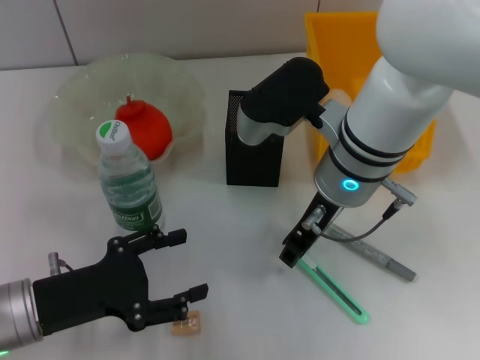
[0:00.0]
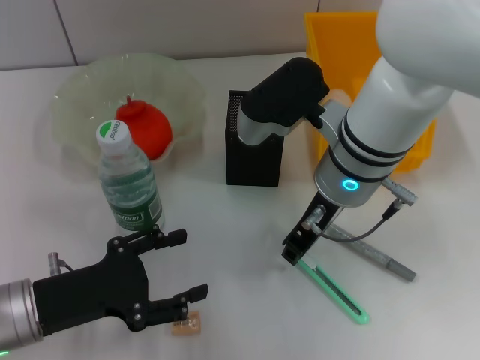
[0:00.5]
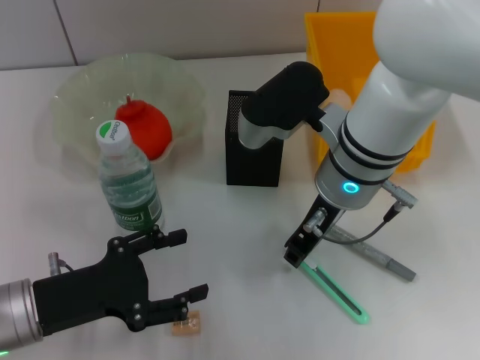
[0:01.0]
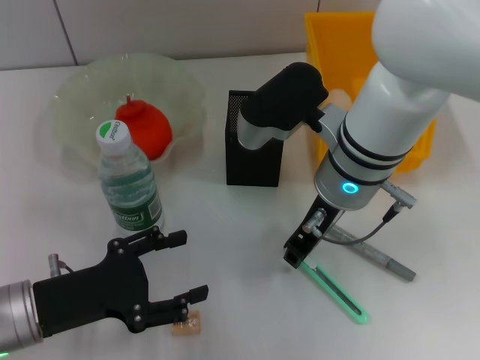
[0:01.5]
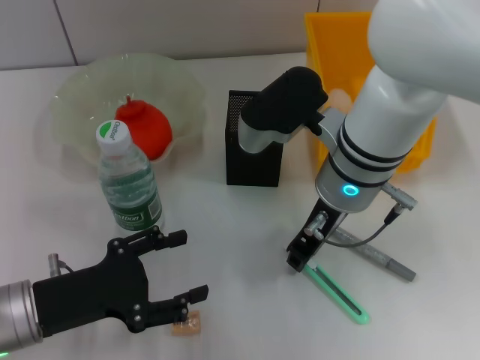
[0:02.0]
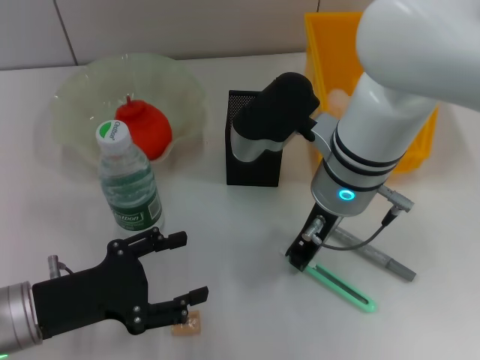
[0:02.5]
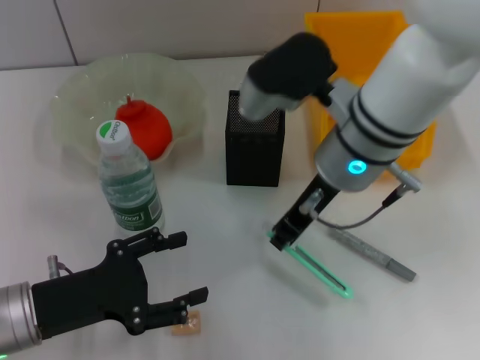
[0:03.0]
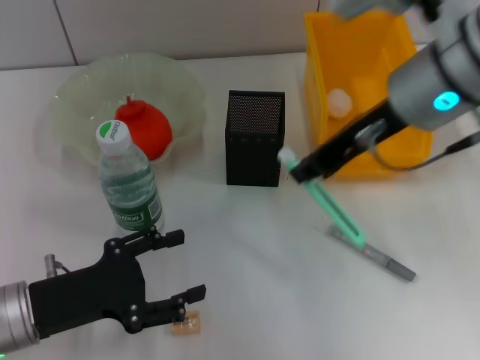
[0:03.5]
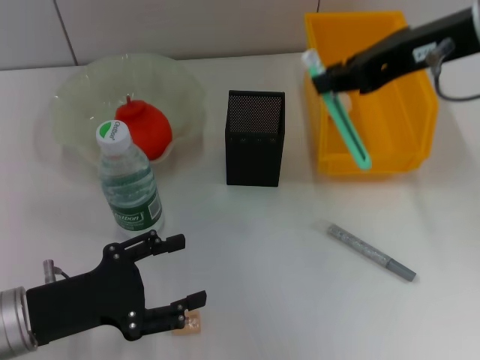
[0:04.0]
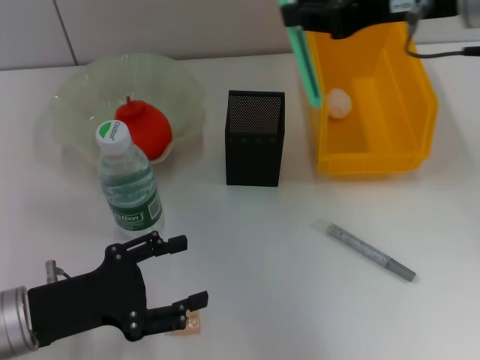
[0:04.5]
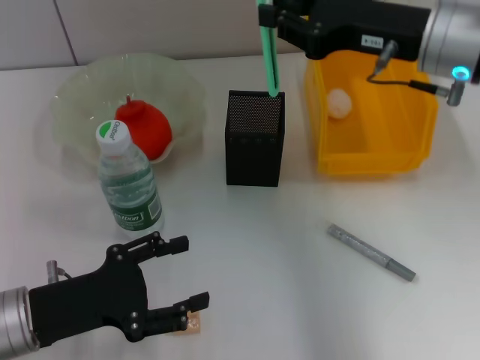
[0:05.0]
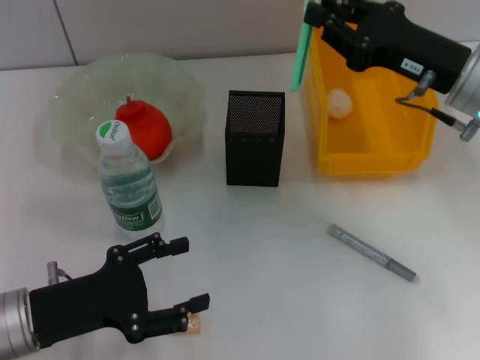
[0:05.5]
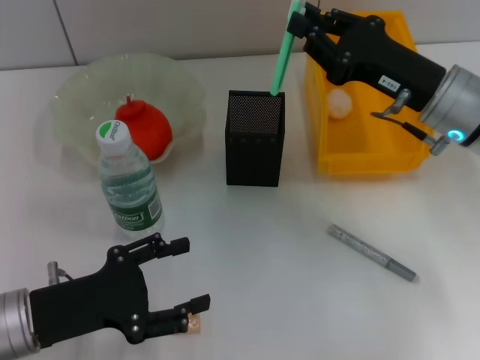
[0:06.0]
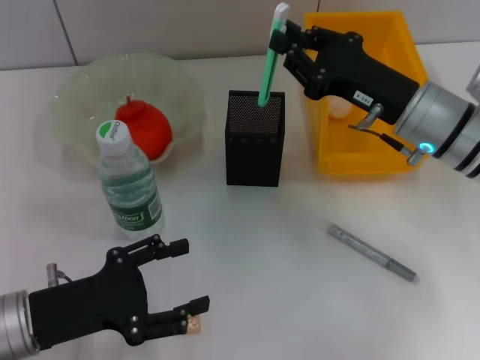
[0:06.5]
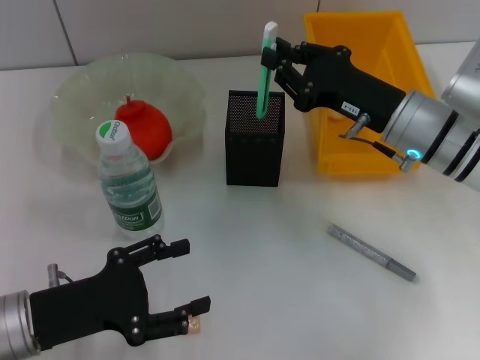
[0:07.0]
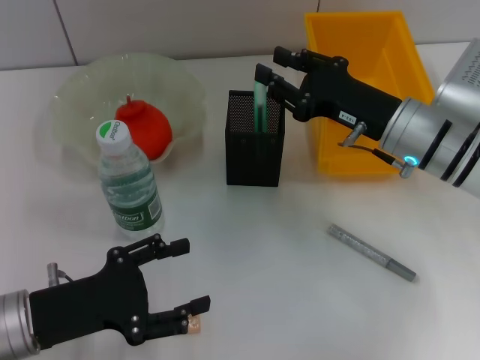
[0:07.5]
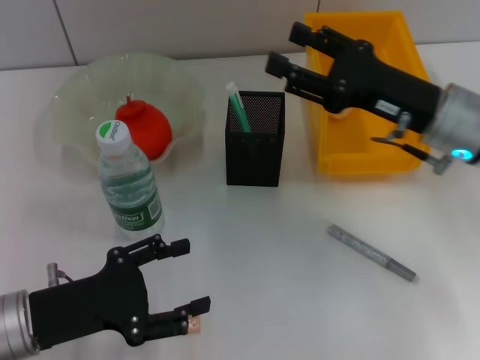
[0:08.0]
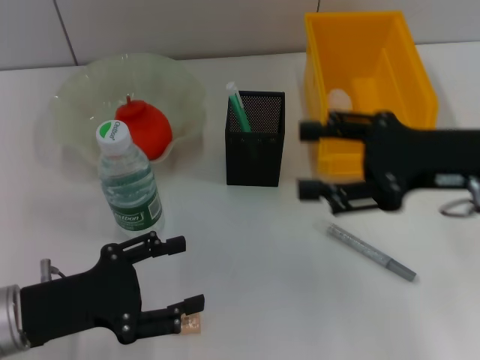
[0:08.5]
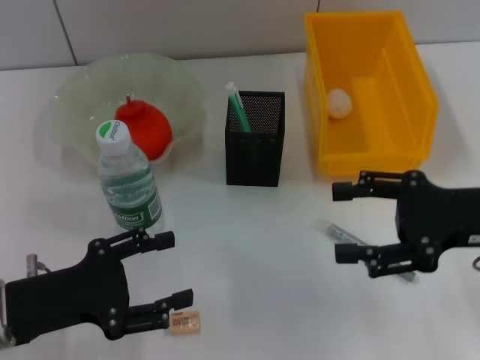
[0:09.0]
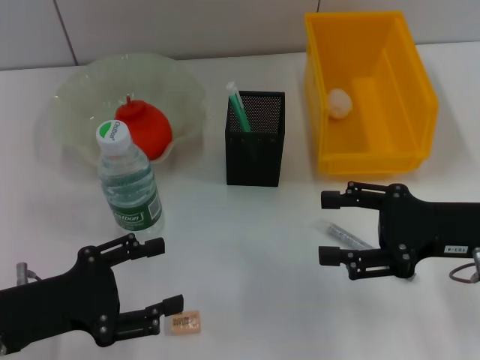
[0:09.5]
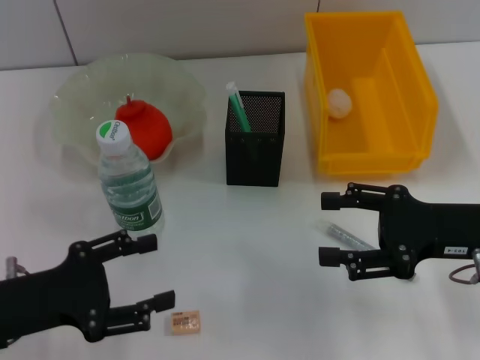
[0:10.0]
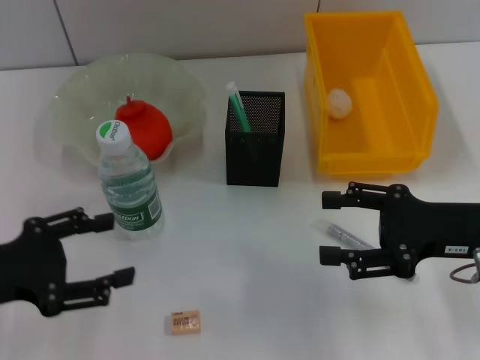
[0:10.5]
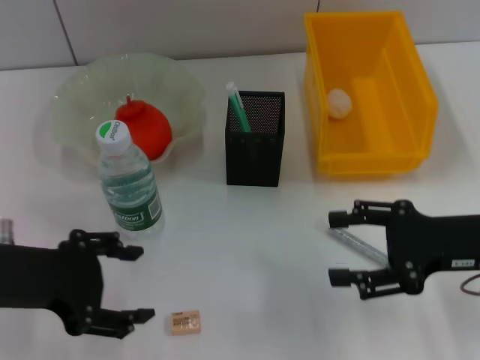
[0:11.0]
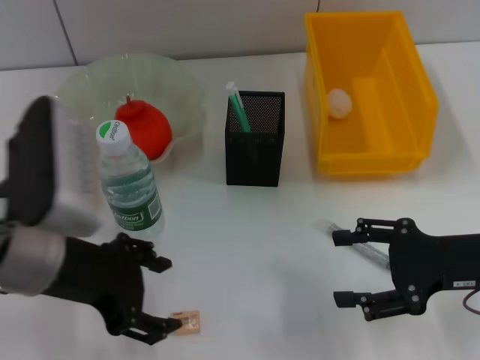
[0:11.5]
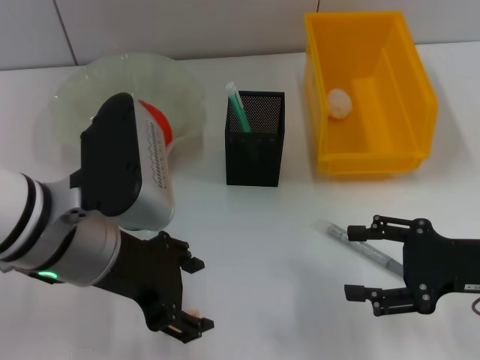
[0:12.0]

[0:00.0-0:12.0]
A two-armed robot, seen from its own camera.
Step, 0:00.0 to 0:02.0: Grab the blue utility knife with the right hand.
Step, 0:02.5 to 0:08.0: Place the blue utility knife into the pen holder with the right hand.
0:00.0 to 0:02.0: Both grippers stay about where they are.
0:02.0 to 0:04.0: The right gripper moves upward and to the right, about 20 cm.
0:04.0 to 0:06.0: The right gripper heads downward, covering about 15 cm.
0:06.0 to 0:08.0: The right gripper opens up.
0:08.0 to 0:10.0: The right gripper moves backward, roughly 10 cm.
0:10.0 to 0:12.0: The left gripper goes some 15 cm to the right and upward.

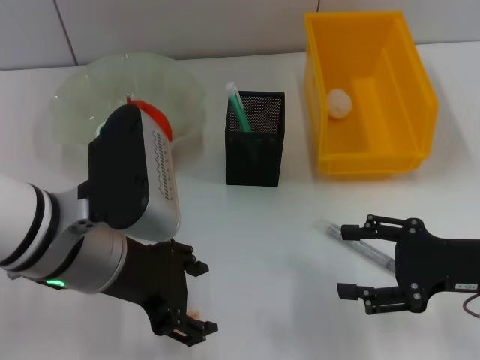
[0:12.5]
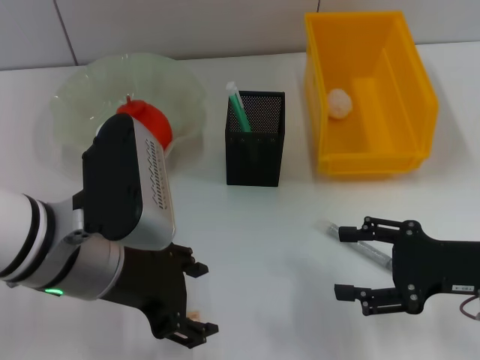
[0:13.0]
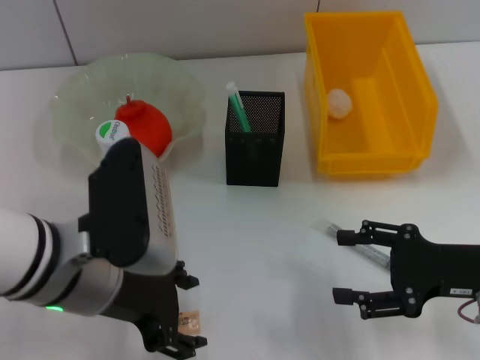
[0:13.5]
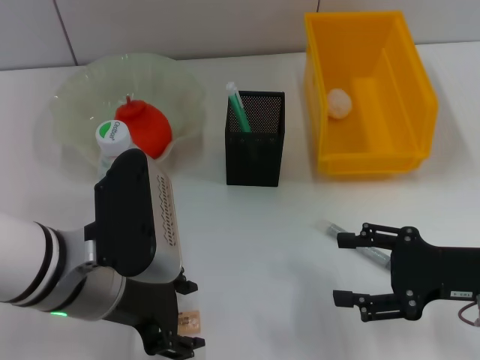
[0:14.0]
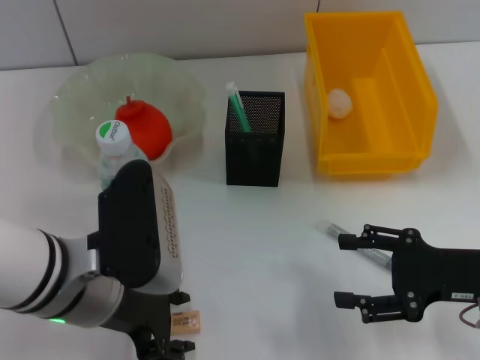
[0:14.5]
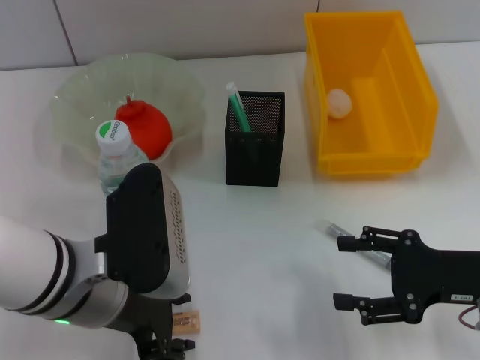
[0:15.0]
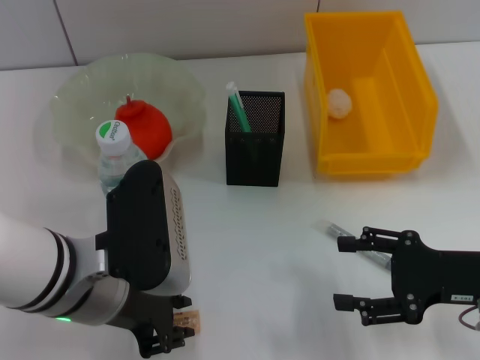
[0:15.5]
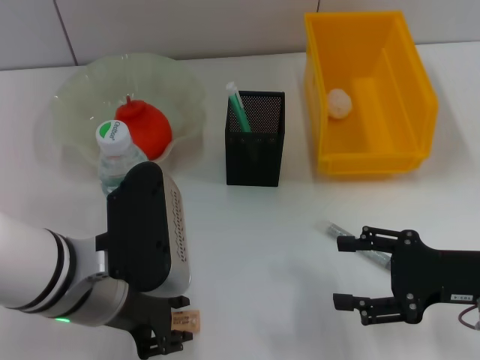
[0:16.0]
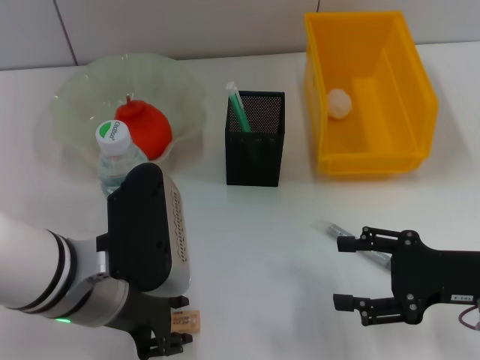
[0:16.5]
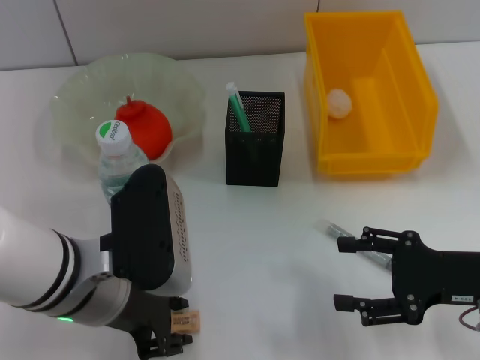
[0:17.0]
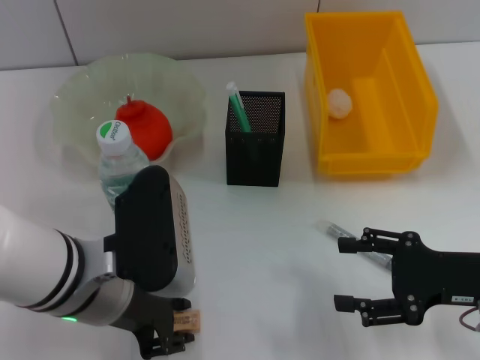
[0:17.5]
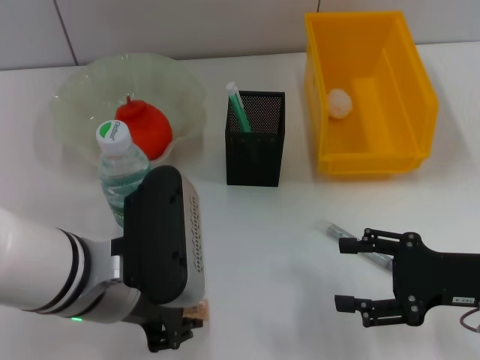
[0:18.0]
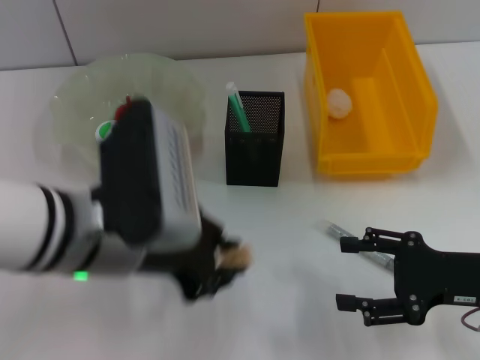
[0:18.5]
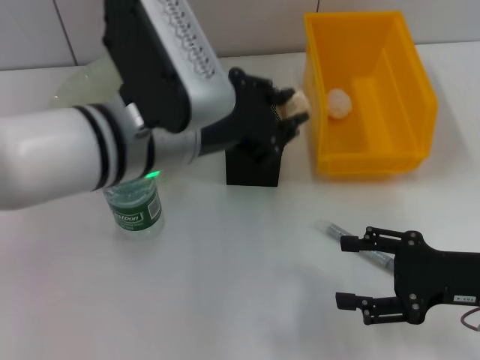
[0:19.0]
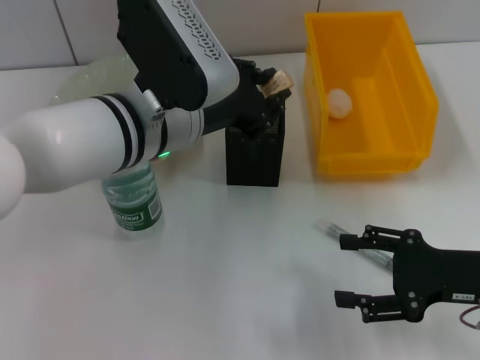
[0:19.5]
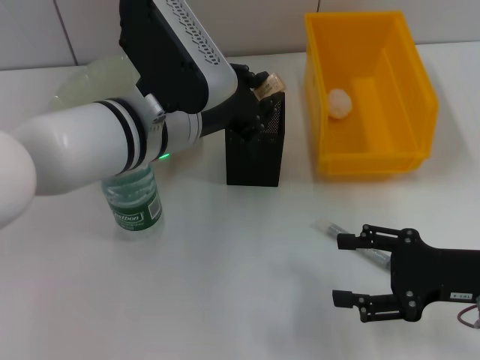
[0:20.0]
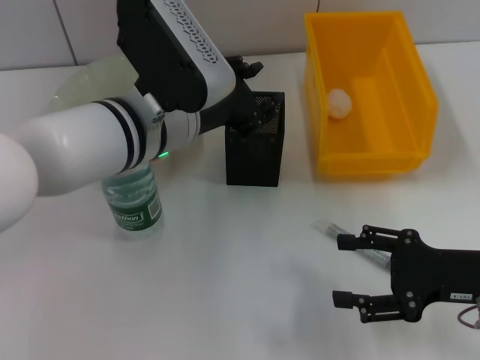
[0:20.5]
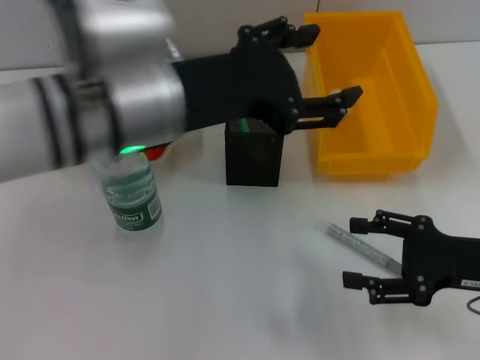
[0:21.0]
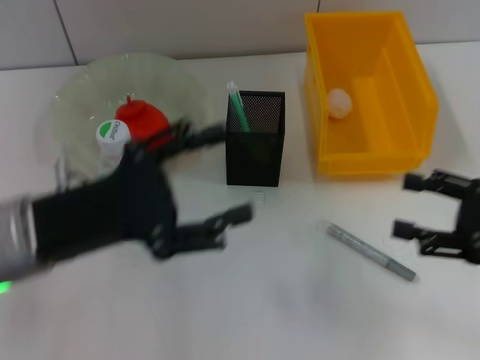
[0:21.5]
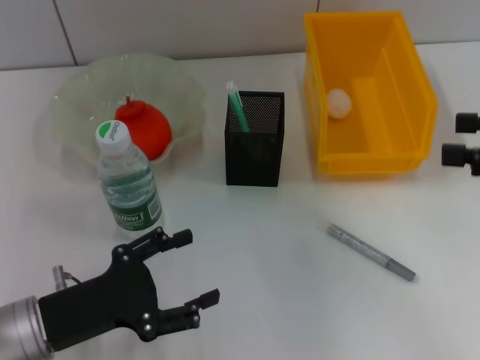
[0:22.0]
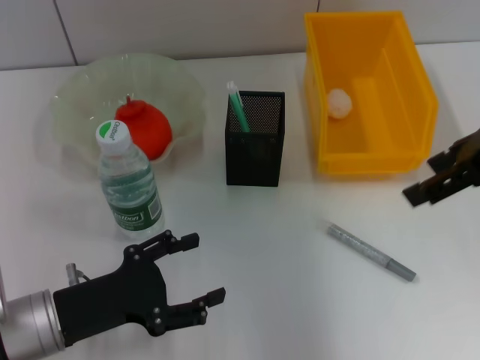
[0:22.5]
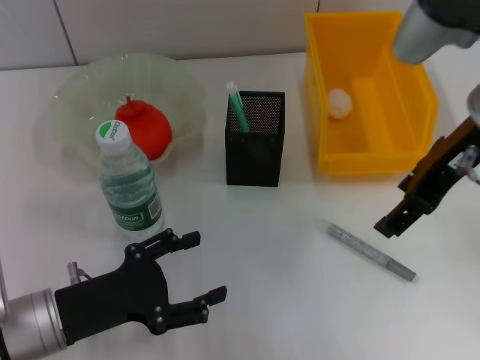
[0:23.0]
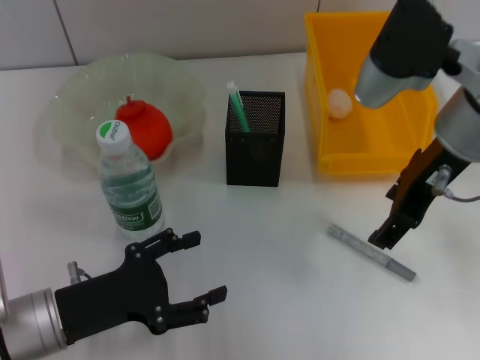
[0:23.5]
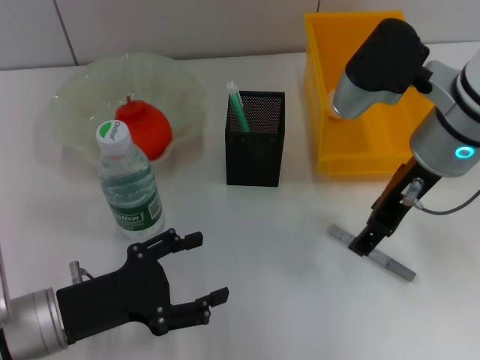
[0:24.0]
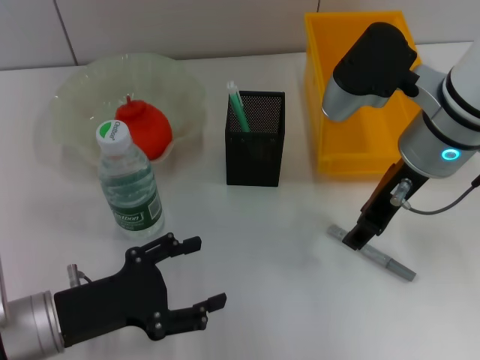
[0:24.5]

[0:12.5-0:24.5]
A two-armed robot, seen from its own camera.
Step, 0:12.5 to 0:17.5: Grab the eraser with the left hand.
Step, 0:18.0 to 0:20.5: Place the eraser into the pen holder with the left hand.
0:12.5 to 0:14.5: The grippers stay close to where they were, moving slightly.
0:14.5 to 0:16.5: Both grippers stay about where they are.
0:16.5 to 0:18.5: The grippers make only small movements.
0:18.5 to 0:20.5: The left gripper moves forward, approximately 10 cm.
0:20.5 to 0:22.5: The left gripper goes approximately 20 cm to the left, downward and backward, and opens its fingers; the right gripper moves upward and forward, approximately 20 cm.
0:22.5 to 0:24.5: The right gripper shifts about 10 cm to the left and downward.

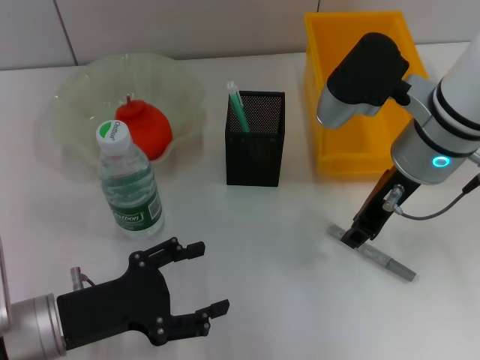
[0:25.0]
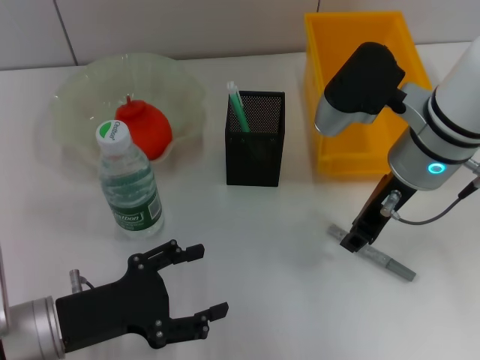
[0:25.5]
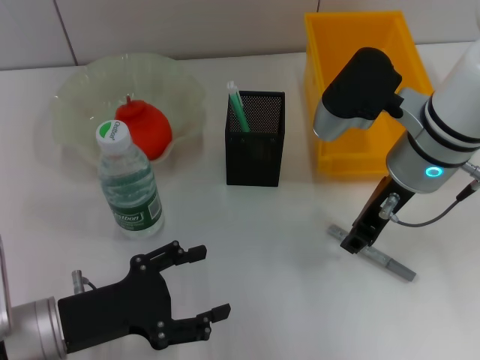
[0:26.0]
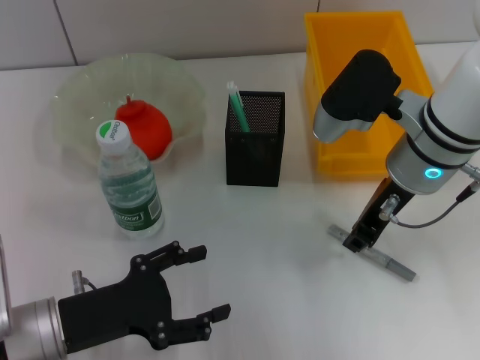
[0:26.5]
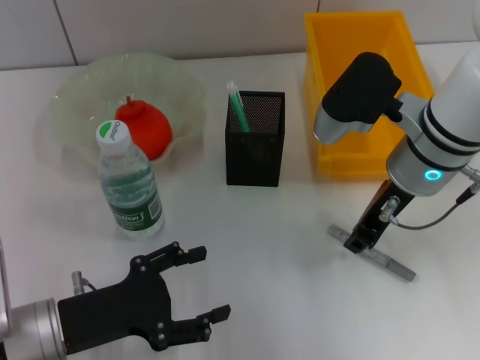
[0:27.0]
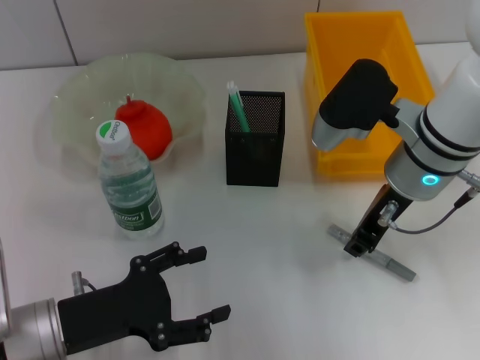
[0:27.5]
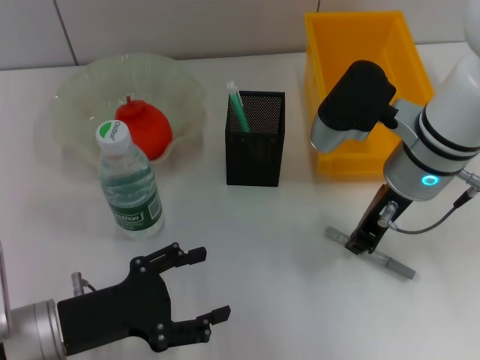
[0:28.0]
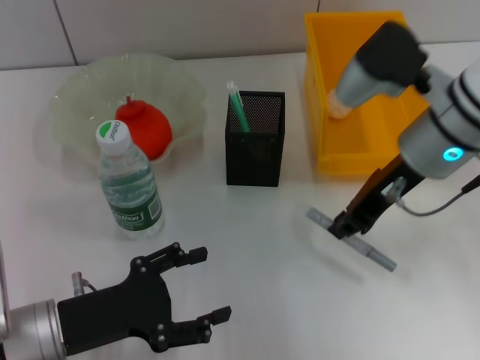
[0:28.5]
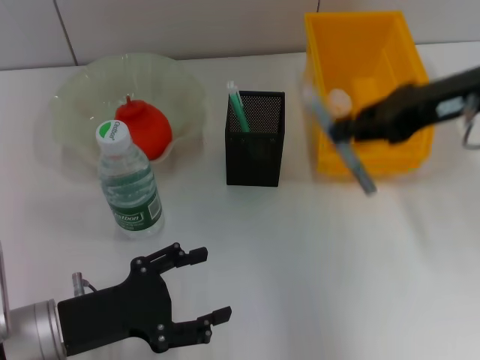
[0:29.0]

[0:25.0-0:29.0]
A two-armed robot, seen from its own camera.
Step, 0:25.0 to 0:27.5: Grab the gray glue with the right hand.
0:25.0 to 0:27.0: There are only small adjustments of the grippers.
0:27.0 to 0:29.0: The right gripper moves to the right and upward, roughly 10 cm.
